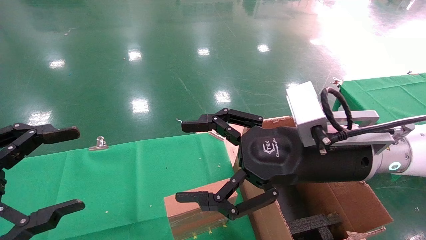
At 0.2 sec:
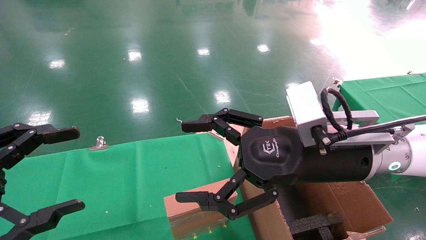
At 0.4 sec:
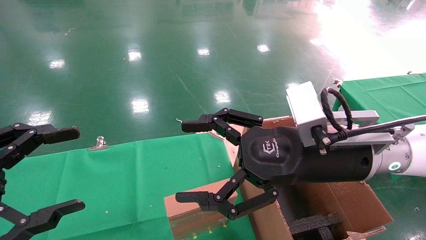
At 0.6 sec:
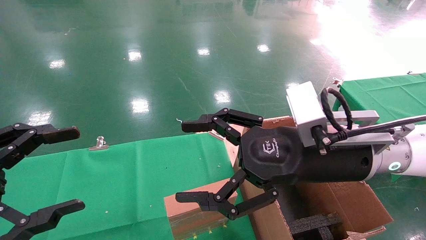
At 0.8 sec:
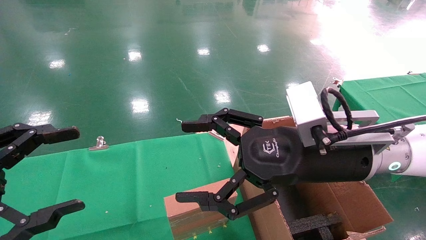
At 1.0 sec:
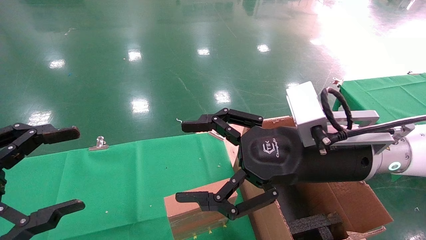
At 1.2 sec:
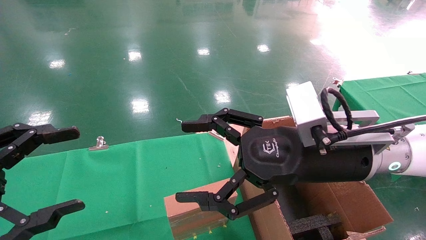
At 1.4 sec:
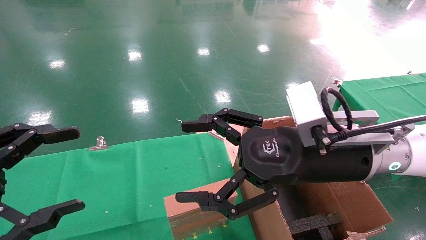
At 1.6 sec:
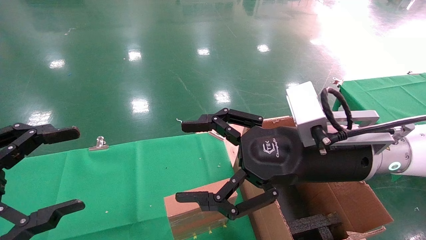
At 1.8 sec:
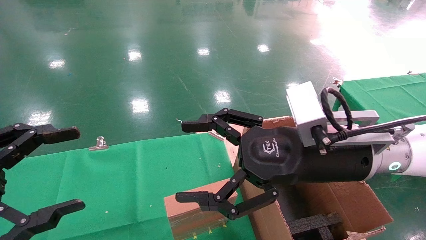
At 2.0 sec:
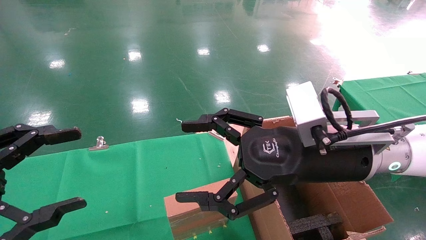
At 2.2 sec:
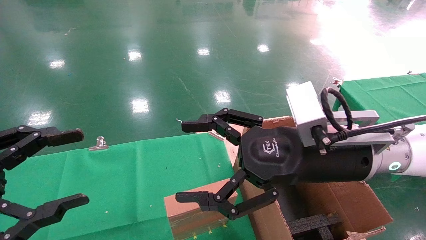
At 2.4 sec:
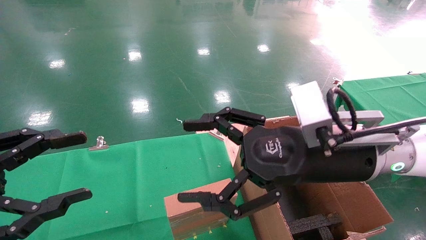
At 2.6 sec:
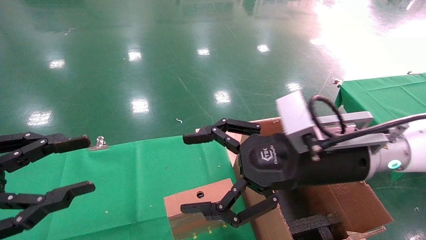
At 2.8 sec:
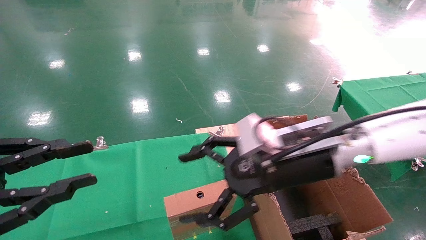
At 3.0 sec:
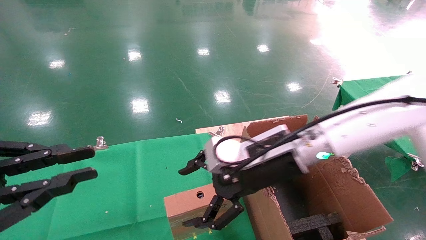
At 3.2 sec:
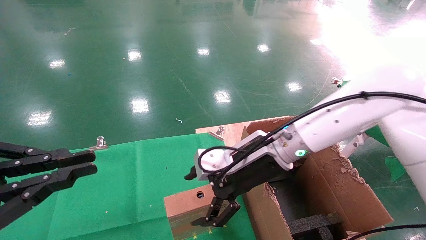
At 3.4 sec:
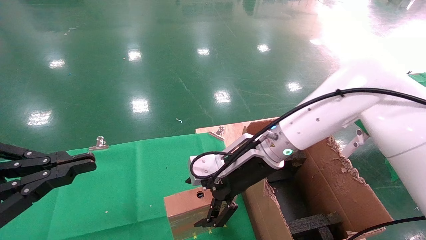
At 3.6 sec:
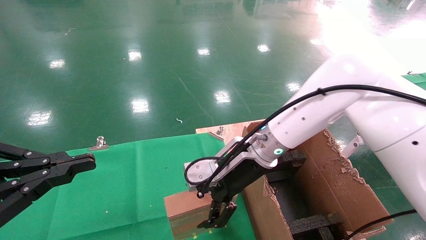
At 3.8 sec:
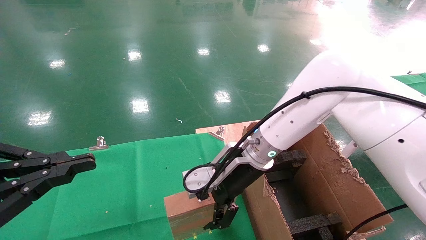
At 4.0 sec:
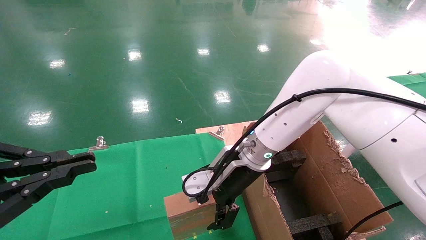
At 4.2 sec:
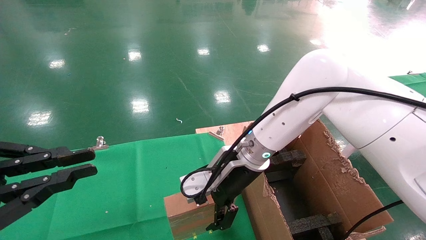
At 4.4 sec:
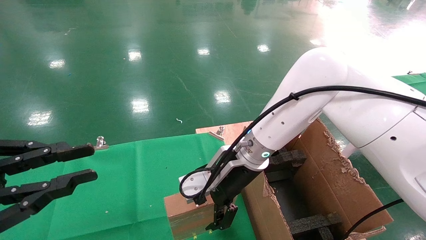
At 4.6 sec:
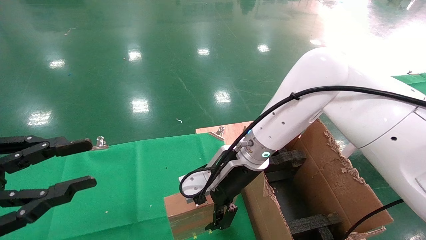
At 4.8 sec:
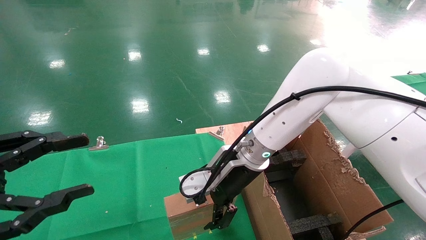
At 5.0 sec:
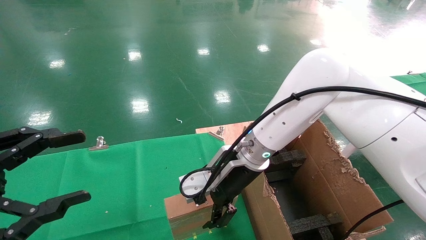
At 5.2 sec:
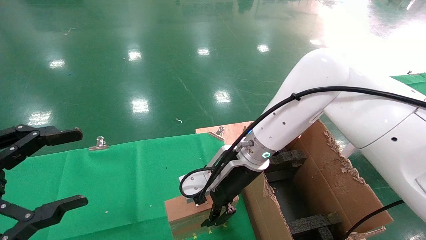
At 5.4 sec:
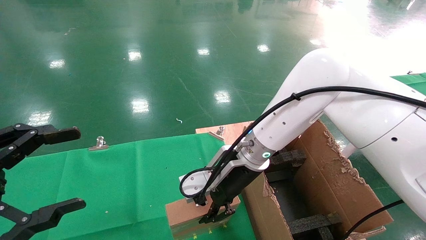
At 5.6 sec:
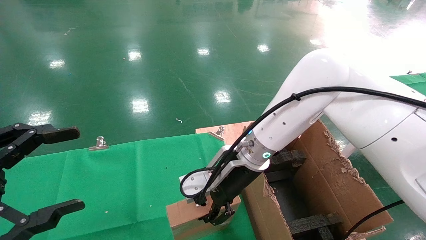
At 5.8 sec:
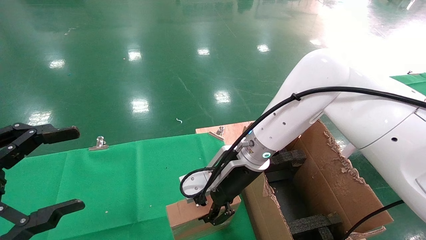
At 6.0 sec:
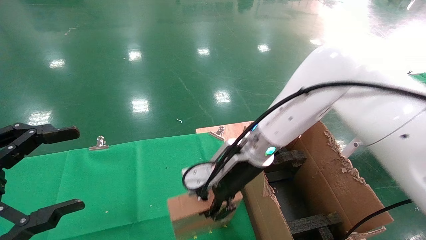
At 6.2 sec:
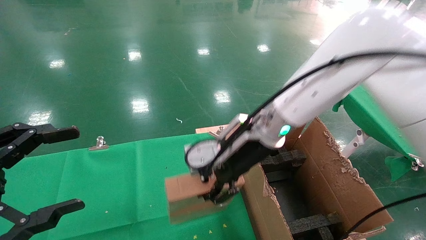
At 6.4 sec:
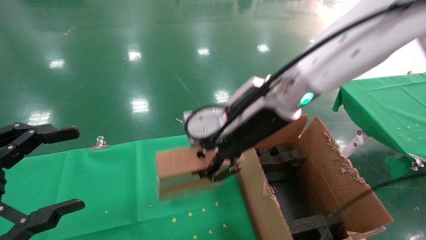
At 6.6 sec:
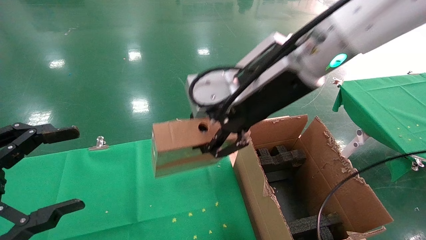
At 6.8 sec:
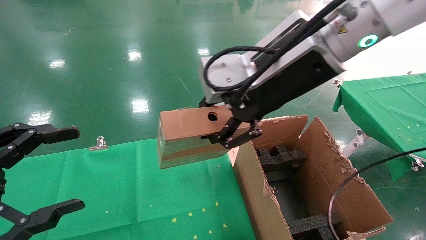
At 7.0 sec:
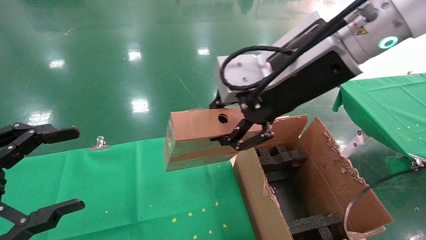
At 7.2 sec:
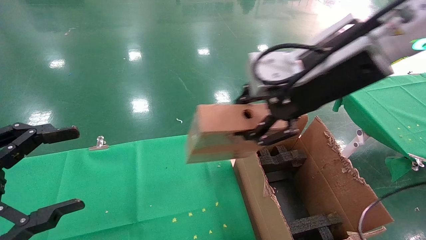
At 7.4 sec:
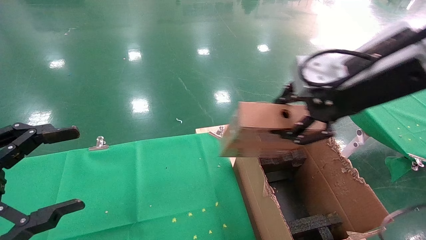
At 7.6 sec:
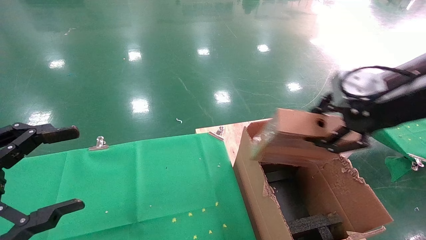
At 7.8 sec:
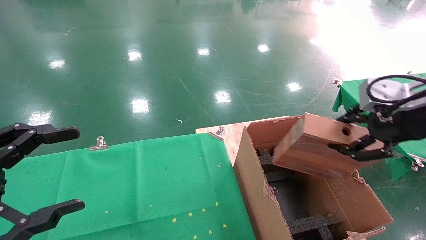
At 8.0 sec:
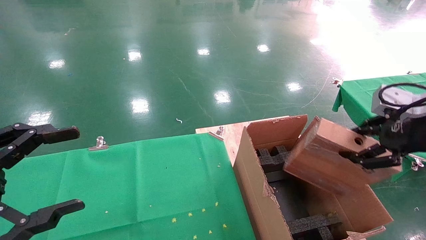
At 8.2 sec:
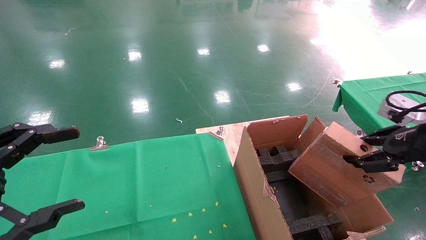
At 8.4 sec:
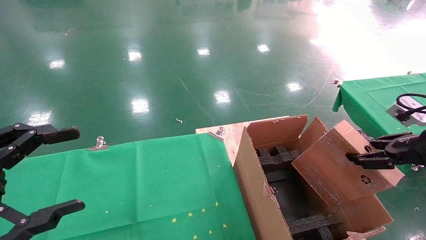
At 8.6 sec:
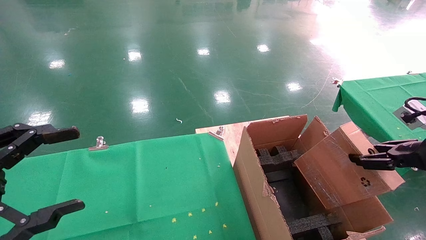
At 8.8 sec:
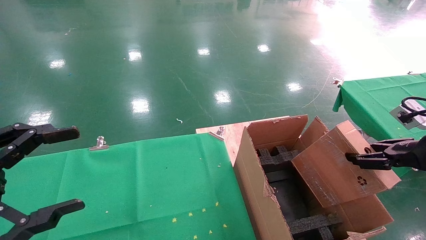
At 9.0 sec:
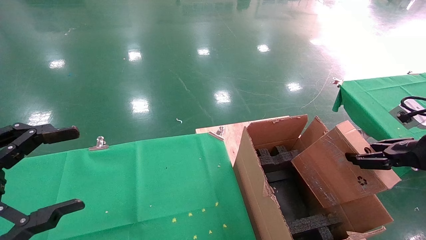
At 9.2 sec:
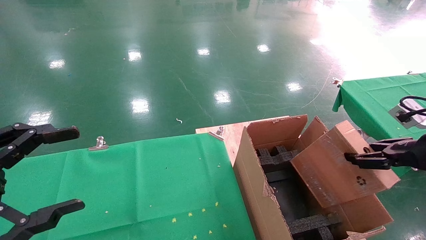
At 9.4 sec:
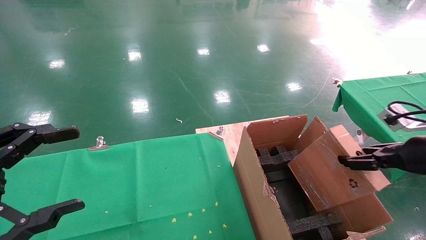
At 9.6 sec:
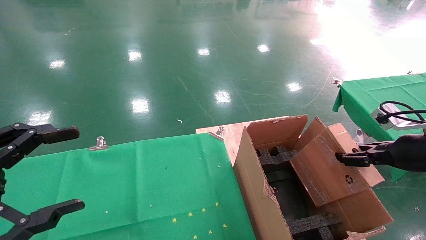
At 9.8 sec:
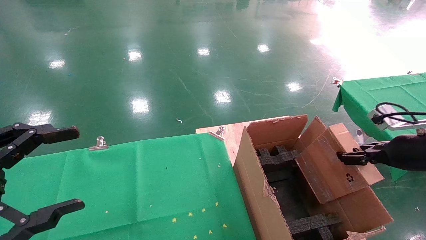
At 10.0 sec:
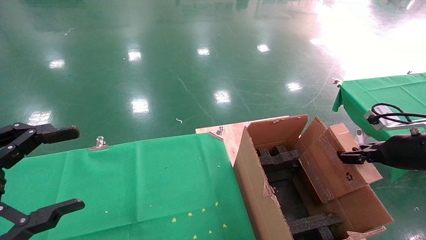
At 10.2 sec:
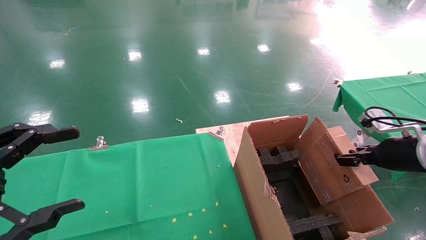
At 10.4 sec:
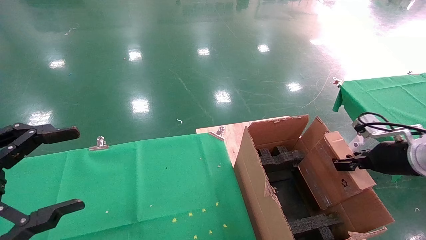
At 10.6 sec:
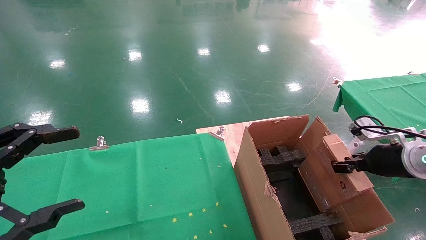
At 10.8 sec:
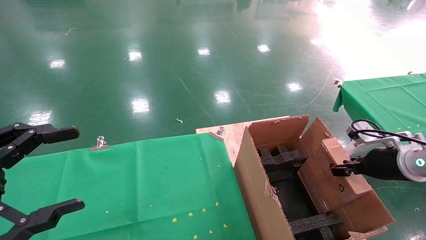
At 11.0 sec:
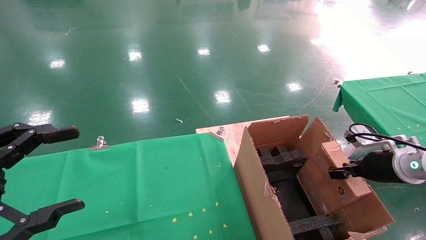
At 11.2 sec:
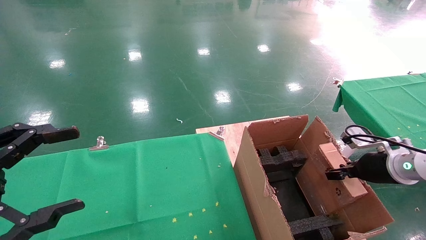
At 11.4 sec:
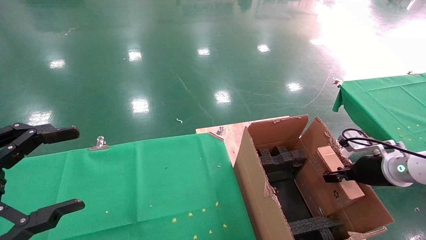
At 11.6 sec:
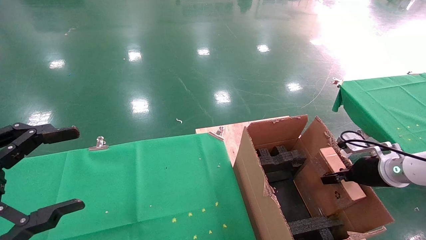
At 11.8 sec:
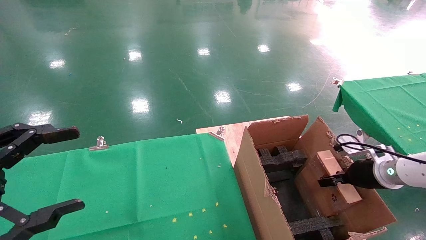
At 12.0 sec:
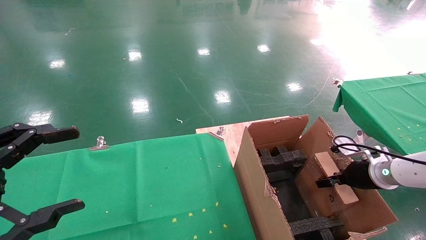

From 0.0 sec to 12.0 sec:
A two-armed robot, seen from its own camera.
Task of the whole recording: using a robotic arm to pick up a cardboard box and palace it the carton.
Step, from 2.4 sec to 5.8 sec: Pick up the mouse and the power cord paper box.
From 0.0 sec to 1.6 sec: The two grippers keep their place.
From 1.6 sec to 3.0 sec: The right gripper moves forward, roughly 10 cm; the left gripper closes its fingers.
From 3.0 sec to 4.4 sec: The right gripper goes roughly 5 cm to the left.
From 4.4 sec to 6.0 sec: The right gripper closes up, while the left gripper opens up.
From 6.0 sec to 7.6 sec: The right gripper travels to the right, upward and backward by some 30 cm.
From 7.6 sec to 9.0 sec: The right gripper heads to the right and downward, covering approximately 20 cm.
From 9.0 sec to 10.4 sec: The right gripper travels forward and downward by approximately 10 cm.
From 10.4 sec to 12.0 sec: The right gripper goes about 10 cm downward and forward.

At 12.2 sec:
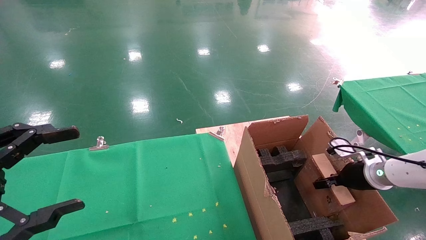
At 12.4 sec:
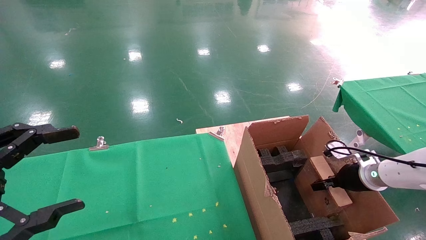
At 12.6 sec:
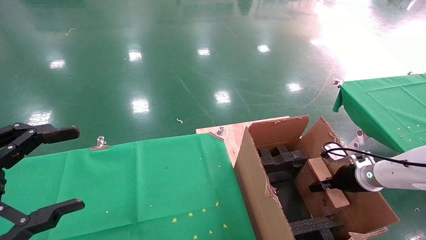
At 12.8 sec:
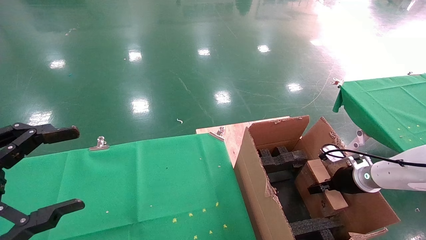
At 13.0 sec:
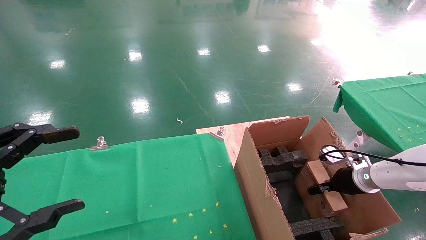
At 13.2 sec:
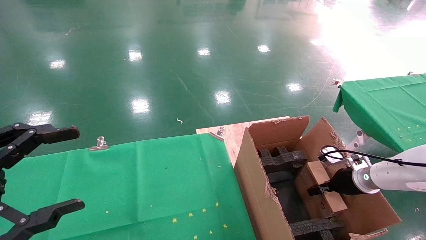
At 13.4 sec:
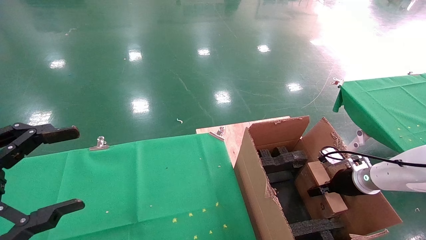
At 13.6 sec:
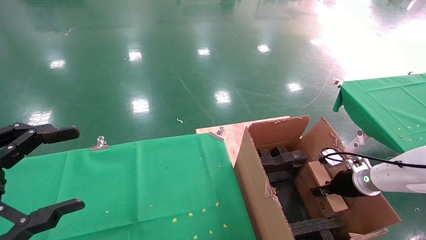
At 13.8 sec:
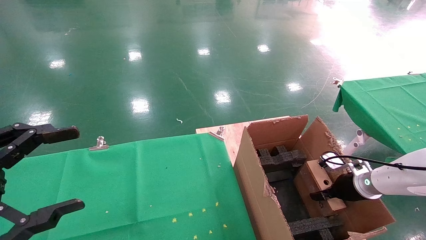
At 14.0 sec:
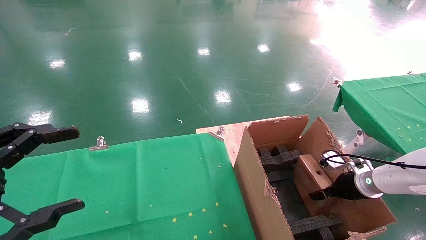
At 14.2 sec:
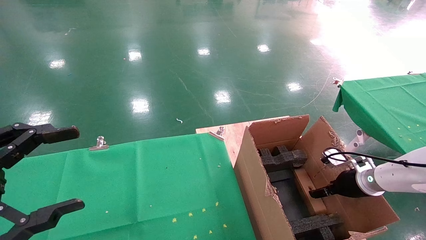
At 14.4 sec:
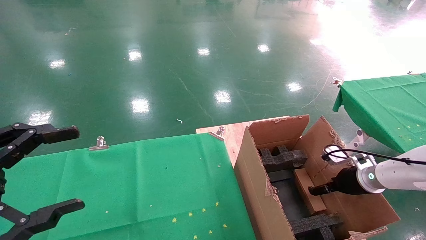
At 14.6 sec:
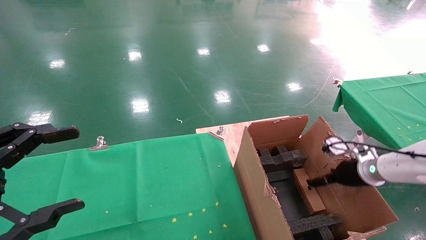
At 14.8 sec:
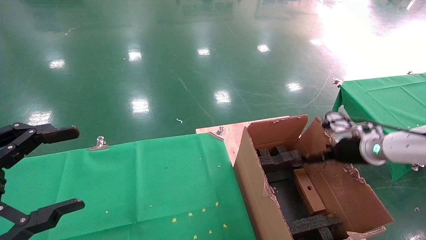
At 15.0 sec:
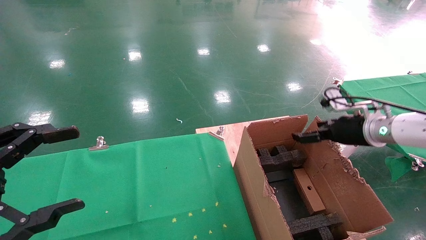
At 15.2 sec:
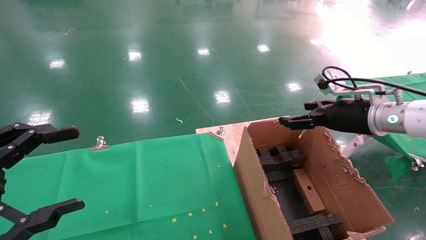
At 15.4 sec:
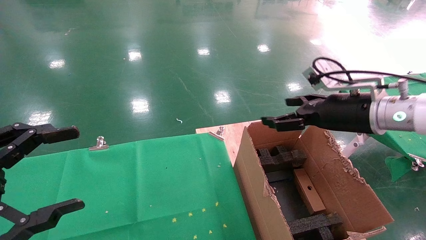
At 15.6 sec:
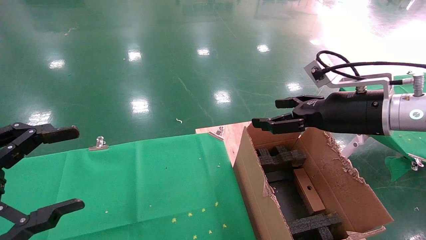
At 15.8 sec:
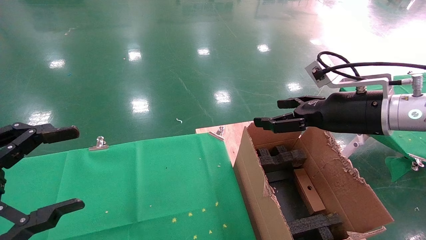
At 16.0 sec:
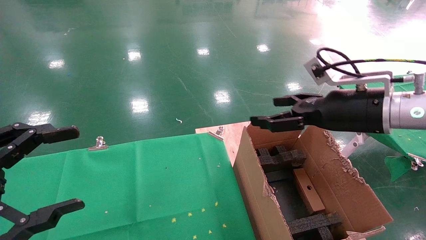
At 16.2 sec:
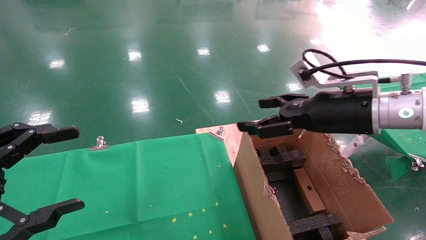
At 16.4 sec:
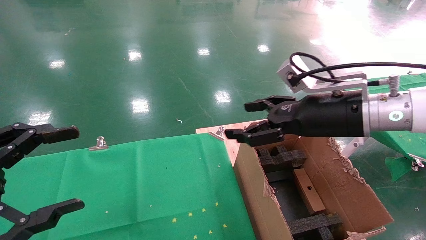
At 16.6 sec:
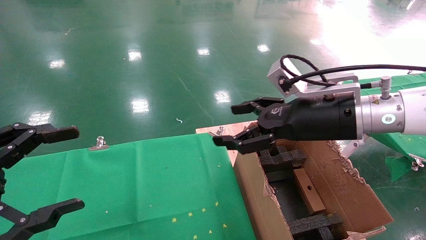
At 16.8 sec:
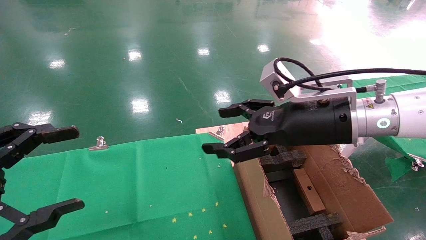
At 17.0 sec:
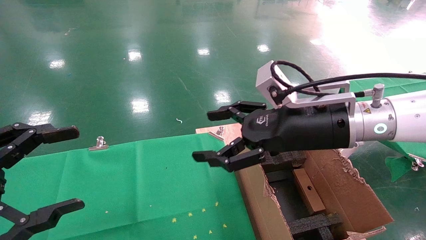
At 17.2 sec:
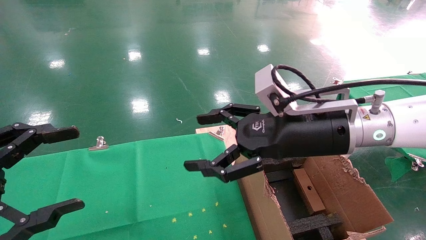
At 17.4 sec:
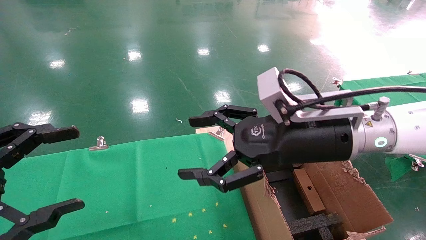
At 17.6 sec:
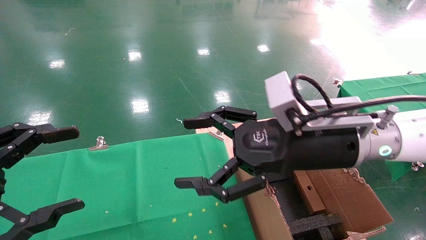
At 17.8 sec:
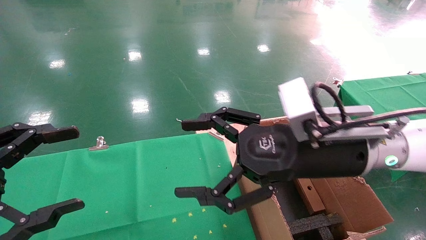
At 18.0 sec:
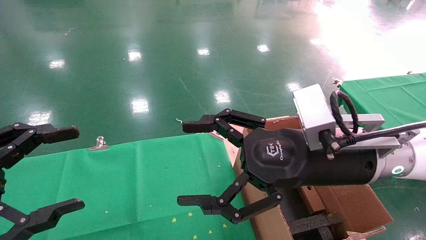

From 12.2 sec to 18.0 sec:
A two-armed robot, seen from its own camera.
Task of the whole recording: using a robotic arm to pick up a cardboard box and palace it the carton.
Step, from 12.2 sec to 14.4 sec: Place the mouse and the power cord paper box into the container.
From 12.2 sec to 13.6 sec: The grippers make only small movements.
From 13.6 sec to 15.0 sec: The right gripper is displaced upward by some 15 cm, and opens up.
From 15.0 sec to 16.6 sec: The right gripper heads to the left, upward and backward, covering about 20 cm.
From 16.6 sec to 18.0 sec: The right gripper moves about 5 cm.
